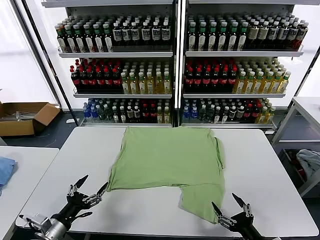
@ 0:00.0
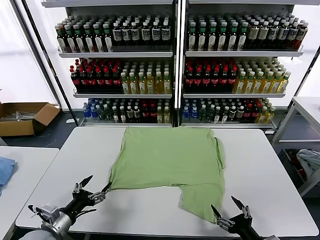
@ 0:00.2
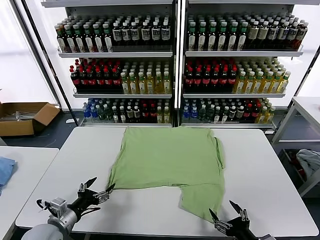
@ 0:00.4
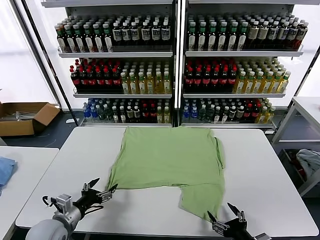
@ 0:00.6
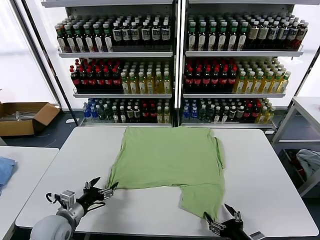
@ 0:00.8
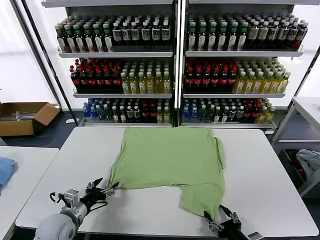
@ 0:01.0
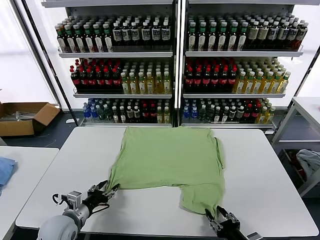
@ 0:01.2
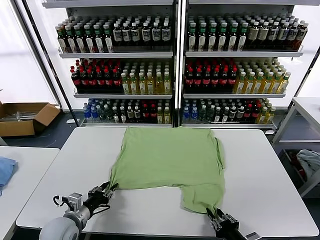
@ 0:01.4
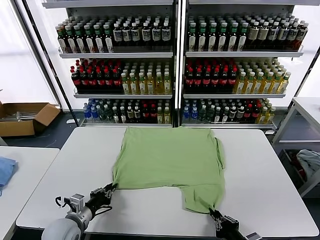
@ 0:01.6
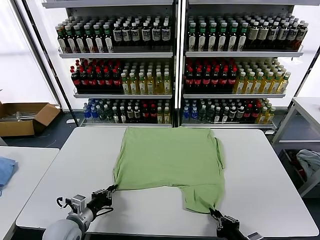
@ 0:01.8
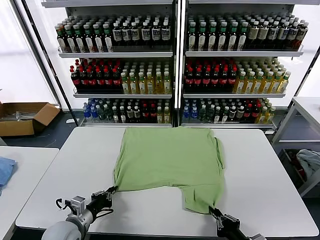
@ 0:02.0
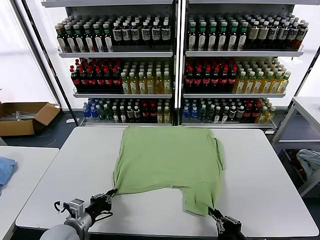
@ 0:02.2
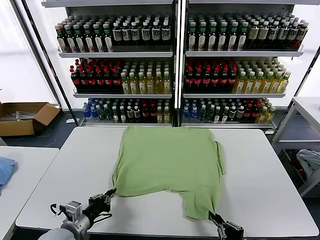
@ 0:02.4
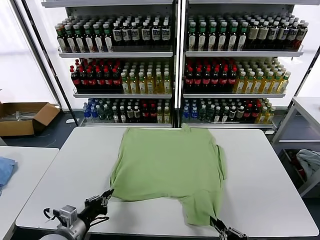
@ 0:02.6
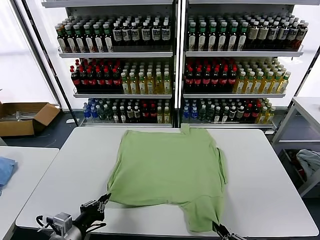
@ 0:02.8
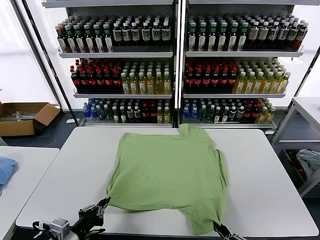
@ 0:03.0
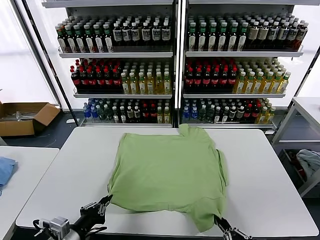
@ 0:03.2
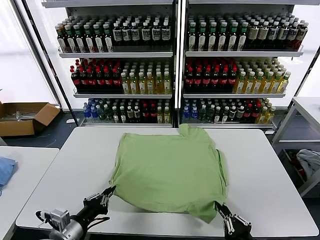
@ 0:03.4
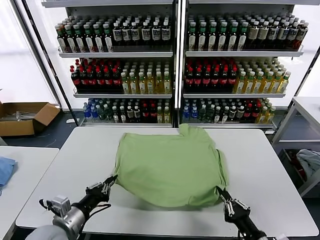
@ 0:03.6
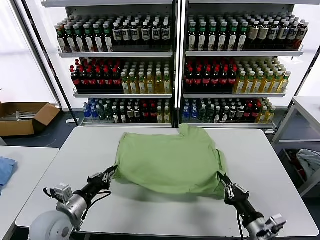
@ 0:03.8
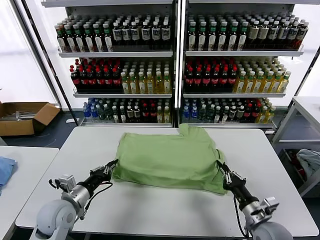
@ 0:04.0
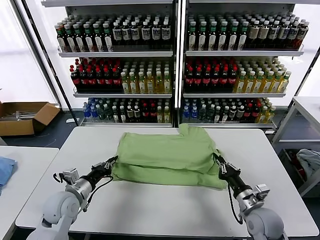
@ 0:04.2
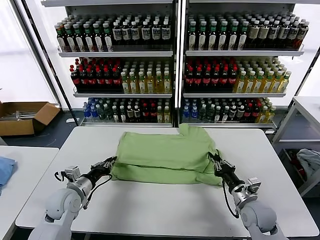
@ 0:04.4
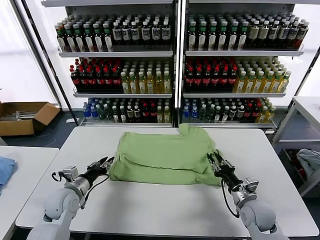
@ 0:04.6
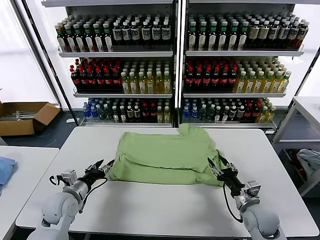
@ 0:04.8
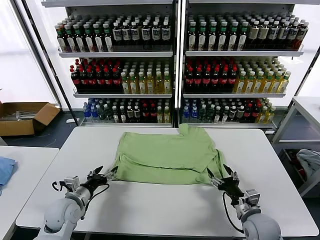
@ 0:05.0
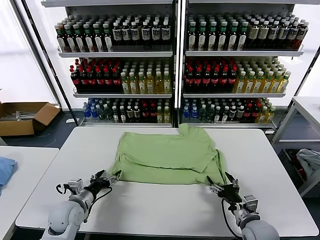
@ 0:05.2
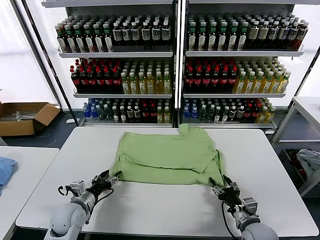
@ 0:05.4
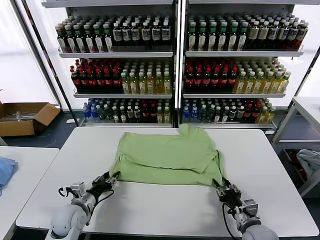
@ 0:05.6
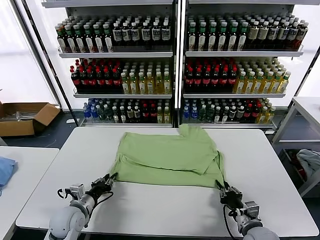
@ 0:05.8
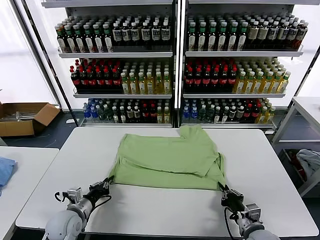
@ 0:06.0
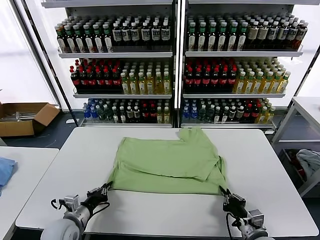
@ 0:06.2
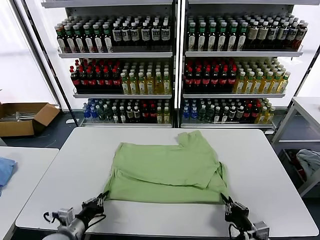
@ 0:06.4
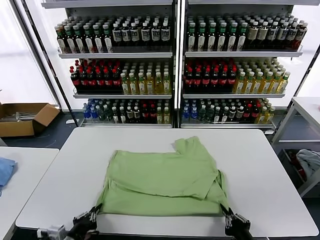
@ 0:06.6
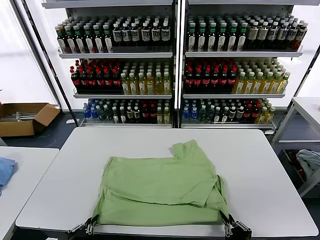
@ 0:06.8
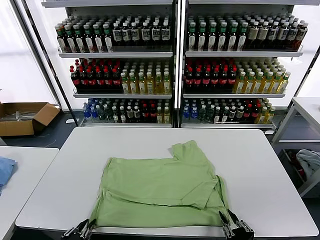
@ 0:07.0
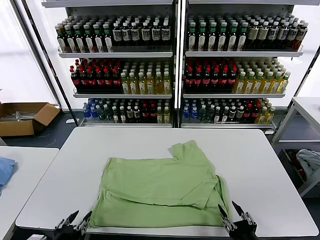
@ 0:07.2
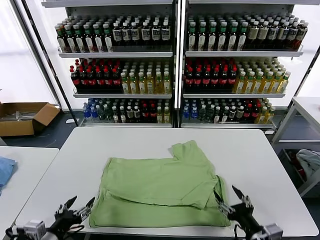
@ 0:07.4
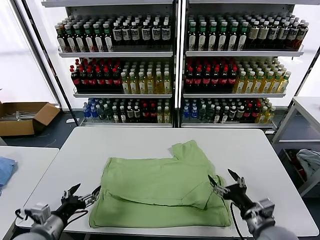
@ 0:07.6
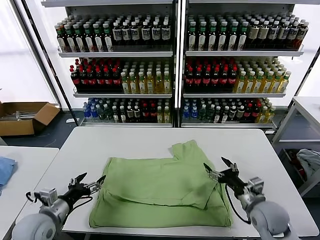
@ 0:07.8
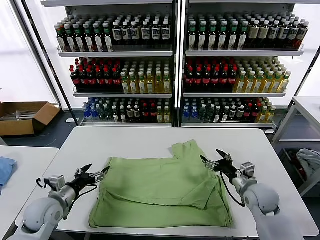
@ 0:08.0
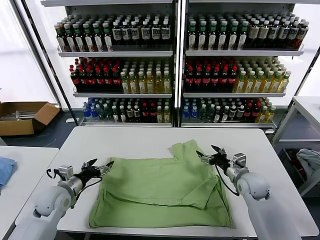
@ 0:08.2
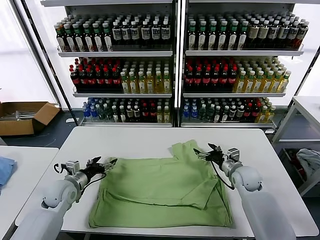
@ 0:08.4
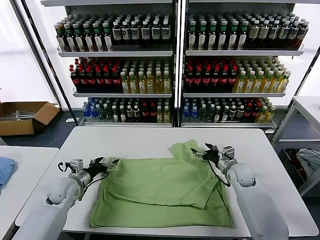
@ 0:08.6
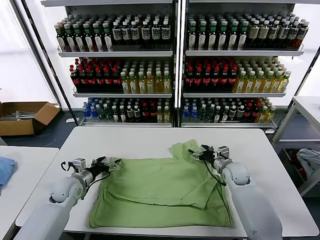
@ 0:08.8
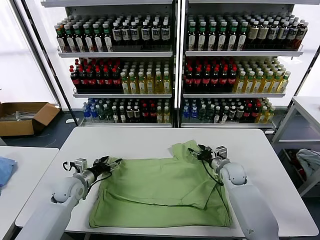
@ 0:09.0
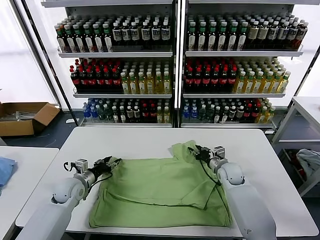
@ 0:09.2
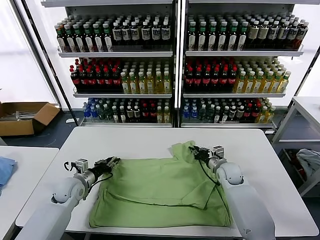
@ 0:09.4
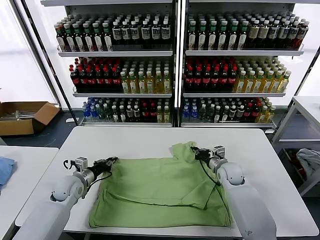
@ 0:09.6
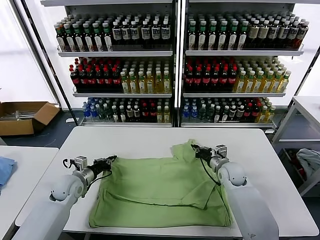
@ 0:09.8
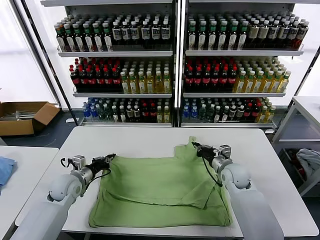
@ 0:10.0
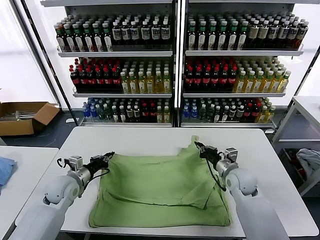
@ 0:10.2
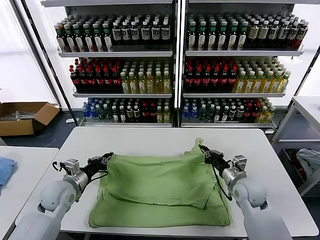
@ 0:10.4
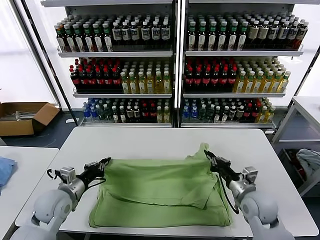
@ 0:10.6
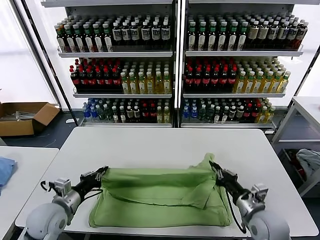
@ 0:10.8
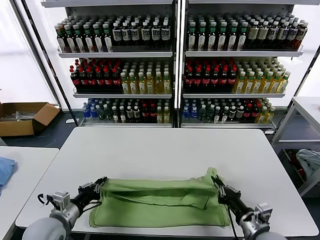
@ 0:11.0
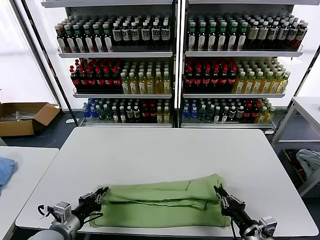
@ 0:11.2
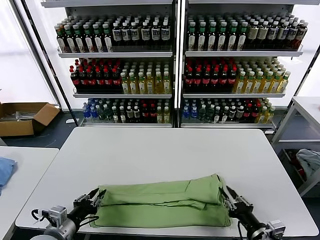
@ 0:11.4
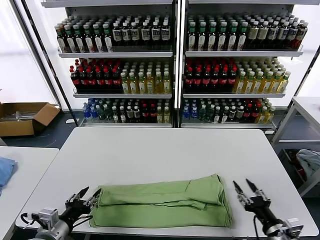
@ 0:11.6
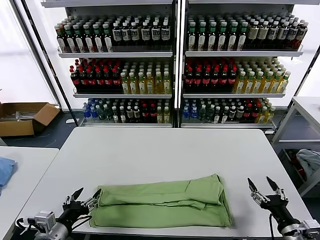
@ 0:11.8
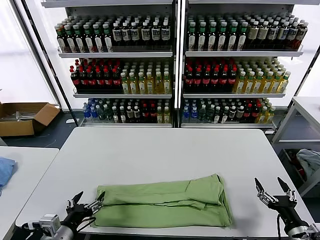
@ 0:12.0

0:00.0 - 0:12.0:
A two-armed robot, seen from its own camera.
Task of the whole recording: fold and organize the clothes.
Step, 0:00.0 - 0:01.8: use both grippers simultaneously to clamp the lower edge of the clothing fabric.
Step, 0:02.0 - 0:04.6: use both grippers to drag the lower edge of the fabric forward and fold it over the upper edge.
Step, 0:04.8 - 0:07.2: Drag the clothes downward with both gripper.
Step, 0:07.4 - 0:09.6: use both grippers simultaneously to clamp the upper edge of the clothing fabric.
Step, 0:09.8 - 0:11.4: use both grippers to drag the upper edge of the fabric backward and fold it over the lower edge.
0:01.6 - 0:03.0: The left gripper moves backward and upward, about 10 cm; the right gripper moves backward, roughly 10 cm.
0:03.0 - 0:04.4: The two grippers go roughly 20 cm forward.
0:04.4 - 0:06.0: The left gripper heads backward, covering about 5 cm, and opens, then closes again. Meanwhile the right gripper is displaced backward by approximately 10 cm, and opens, then closes again.
0:06.0 - 0:07.6: The left gripper travels backward and upward by approximately 10 cm, and opens. Meanwhile the right gripper is displaced upward by about 5 cm, reaches roughly 10 cm backward, then returns, and opens.
0:07.6 - 0:09.0: Both grippers move forward, approximately 20 cm. The right gripper closes its fingers.
0:09.0 - 0:10.4: The left gripper shifts roughly 5 cm upward, and closes, while the right gripper goes about 15 cm backward and upward, and closes its fingers.
0:10.4 - 0:12.0: The left gripper heads backward, covering roughly 20 cm, and opens up. Meanwhile the right gripper travels backward and to the right by approximately 25 cm, and opens up.

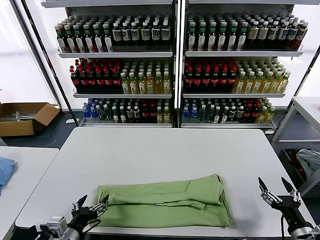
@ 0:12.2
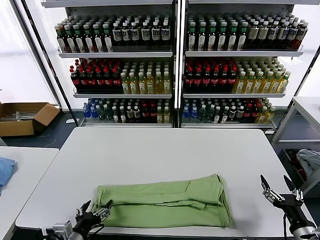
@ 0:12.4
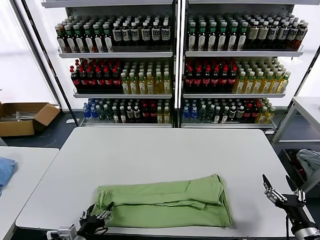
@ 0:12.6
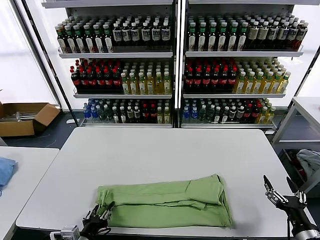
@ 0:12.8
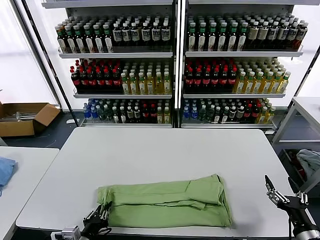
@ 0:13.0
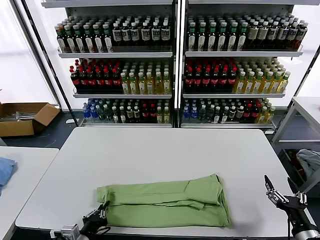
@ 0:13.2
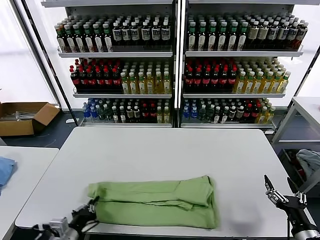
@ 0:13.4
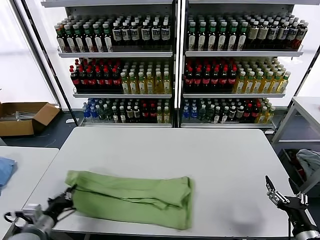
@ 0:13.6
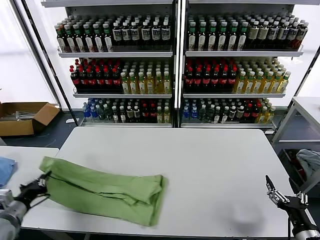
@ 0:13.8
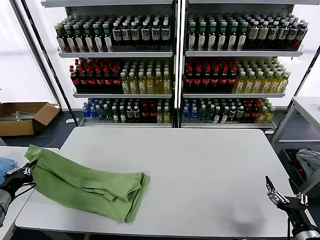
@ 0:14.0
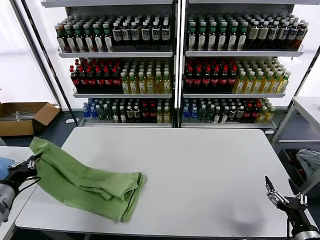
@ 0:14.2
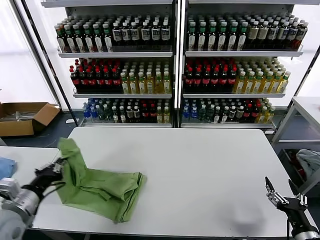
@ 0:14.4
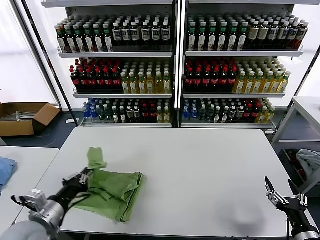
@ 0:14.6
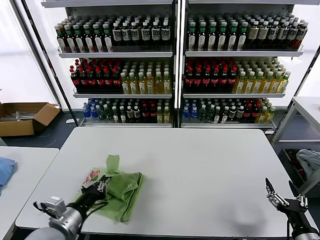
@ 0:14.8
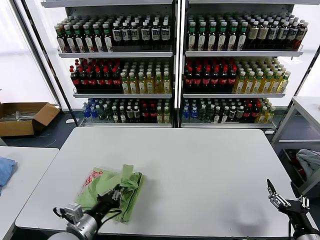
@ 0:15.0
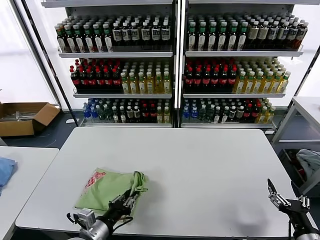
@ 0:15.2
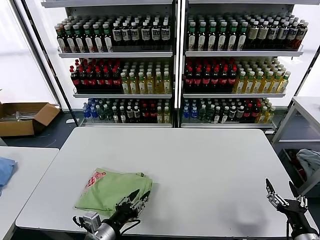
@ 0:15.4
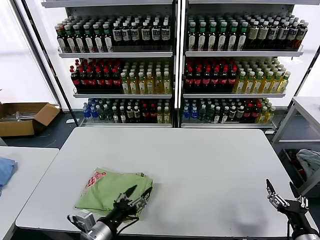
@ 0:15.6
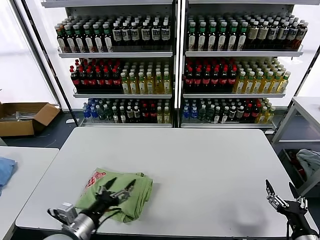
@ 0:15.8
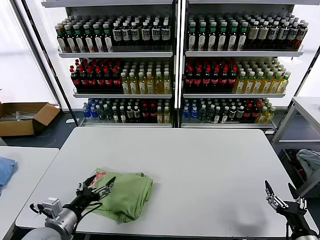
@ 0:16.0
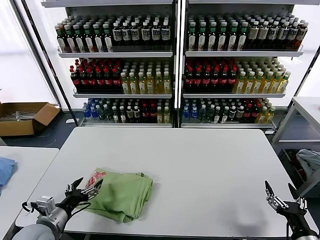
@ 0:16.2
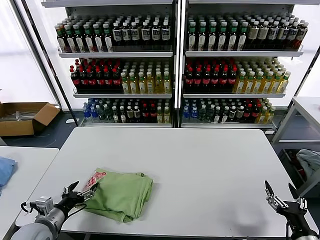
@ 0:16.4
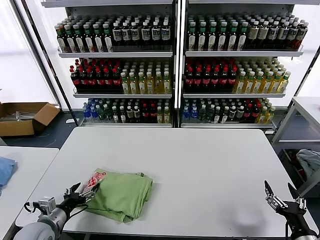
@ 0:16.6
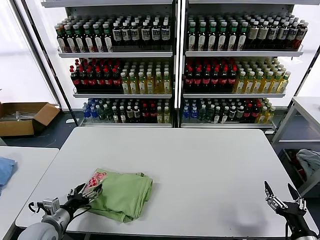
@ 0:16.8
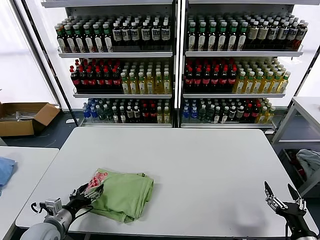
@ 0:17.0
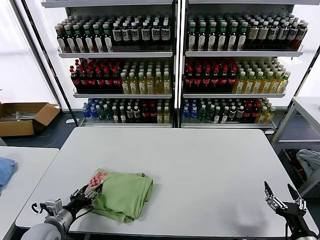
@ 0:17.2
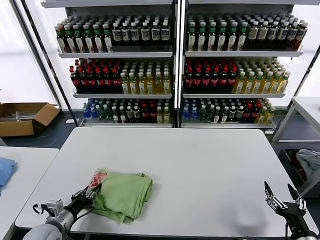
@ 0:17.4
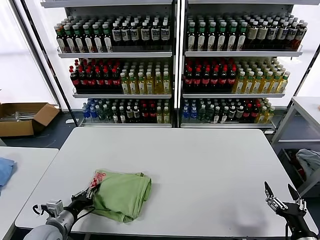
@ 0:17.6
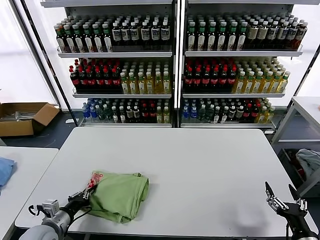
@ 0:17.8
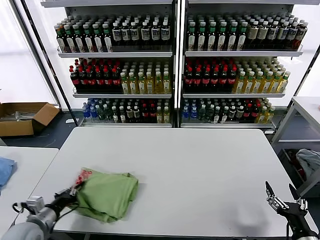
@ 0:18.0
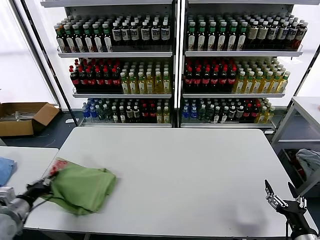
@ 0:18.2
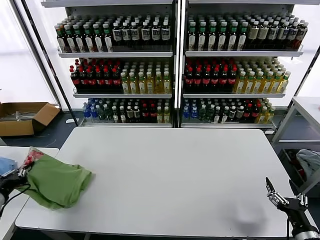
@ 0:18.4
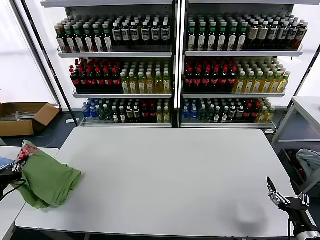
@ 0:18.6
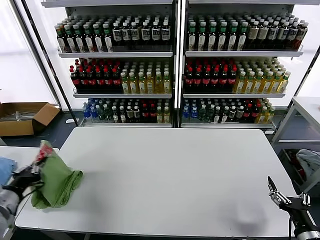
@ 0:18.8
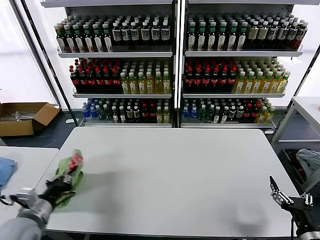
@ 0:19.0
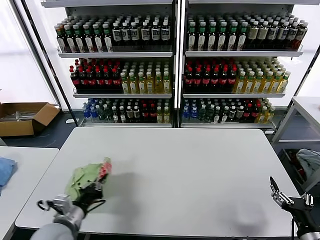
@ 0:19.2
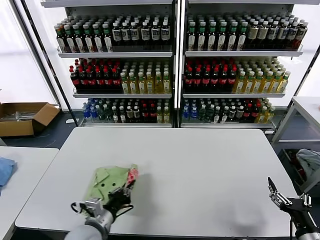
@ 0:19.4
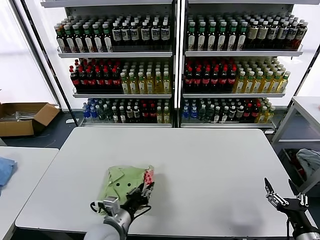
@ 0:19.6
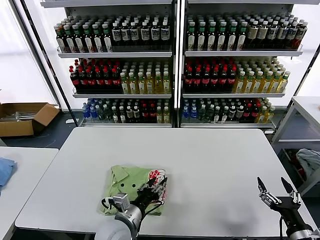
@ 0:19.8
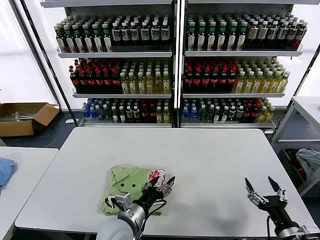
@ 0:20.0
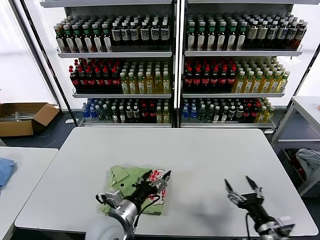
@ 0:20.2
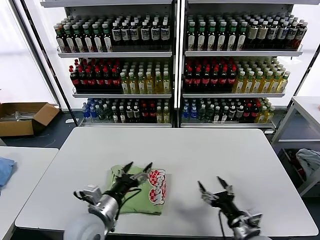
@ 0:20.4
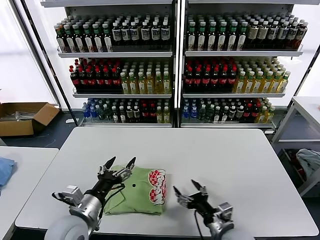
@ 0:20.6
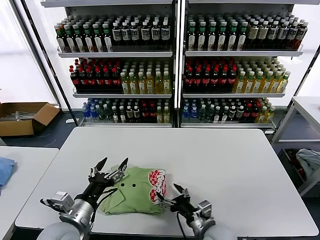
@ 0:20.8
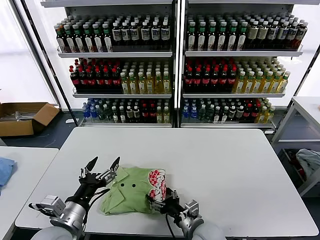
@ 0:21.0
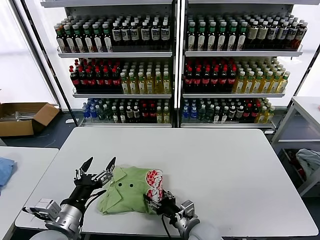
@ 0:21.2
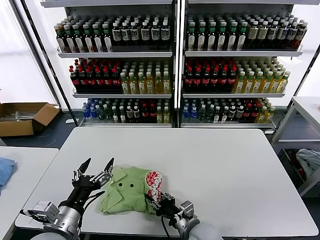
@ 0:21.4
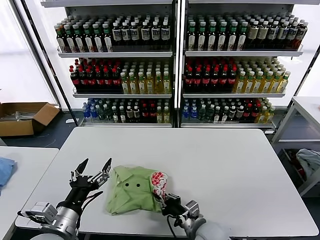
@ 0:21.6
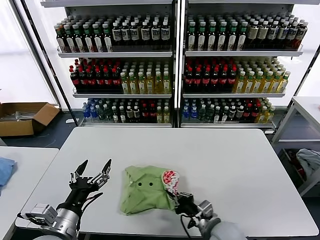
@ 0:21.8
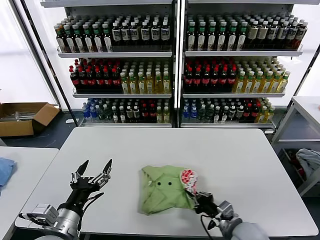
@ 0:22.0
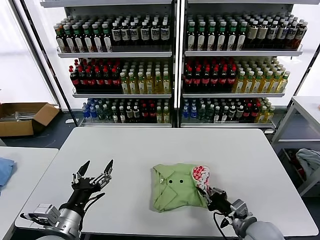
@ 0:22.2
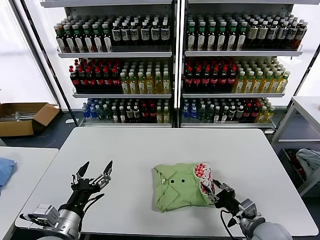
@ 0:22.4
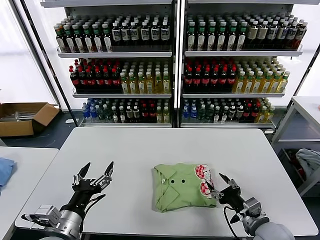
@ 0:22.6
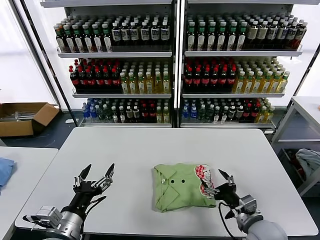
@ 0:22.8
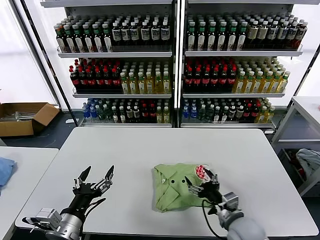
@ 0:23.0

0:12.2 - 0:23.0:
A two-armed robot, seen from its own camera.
Task of the whole recording: fold and organize the clothes.
Step, 0:12.2 - 0:13.0: use the left gripper to clamp the left edge of the fabric.
Step, 0:13.2 - 0:15.4: use the left gripper to drag the left edge of the fabric to the left and folds it over the right edge.
Step, 0:15.6 - 0:19.8: Flip the folded clothes over with left gripper.
0:12.2 - 0:13.8: The left gripper travels to the left by approximately 15 cm, and closes its fingers.
0:13.8 - 0:15.2: The left gripper shifts some 20 cm to the right.
0:15.2 - 0:16.8: The left gripper goes some 15 cm to the left, and opens.
0:16.8 - 0:18.4: The left gripper shifts roughly 15 cm to the left and upward, and closes up.
0:18.4 - 0:20.0: The left gripper heads to the right, covering some 40 cm, and opens up.
0:20.0 - 0:21.4: The left gripper moves to the left, upward and backward, approximately 15 cm; the right gripper goes some 25 cm to the left and forward, and closes up.
0:21.4 - 0:23.0: The right gripper moves to the right and upward, some 15 cm, and opens.
